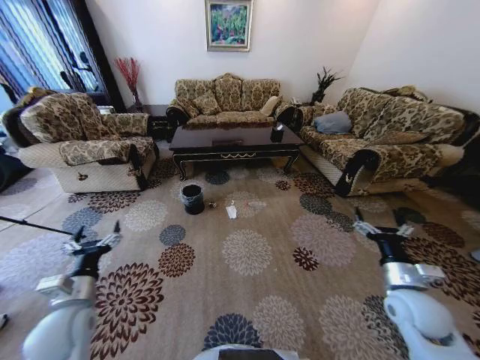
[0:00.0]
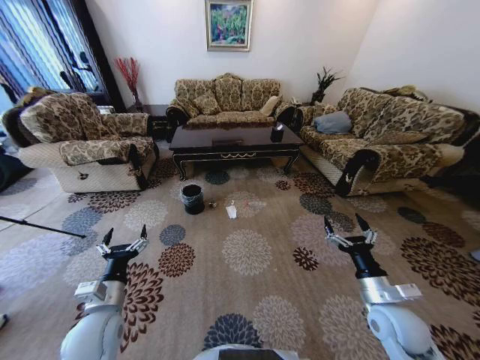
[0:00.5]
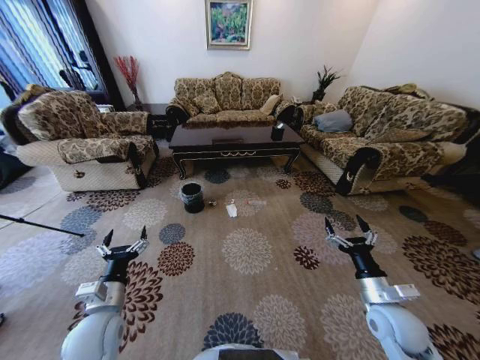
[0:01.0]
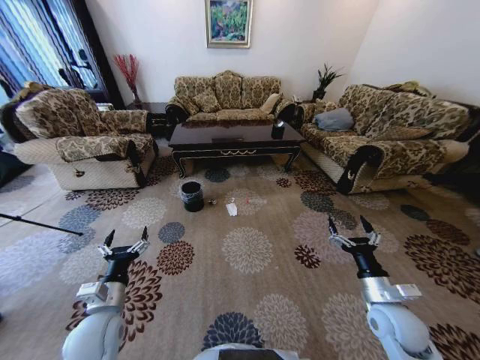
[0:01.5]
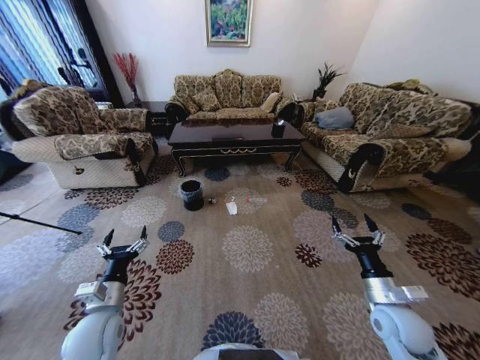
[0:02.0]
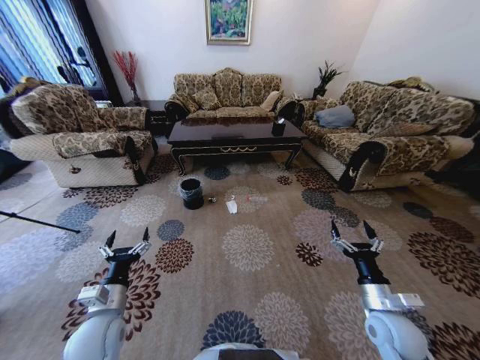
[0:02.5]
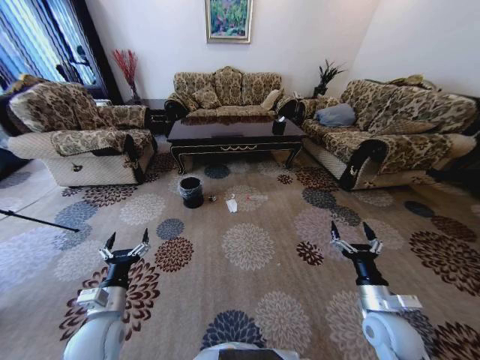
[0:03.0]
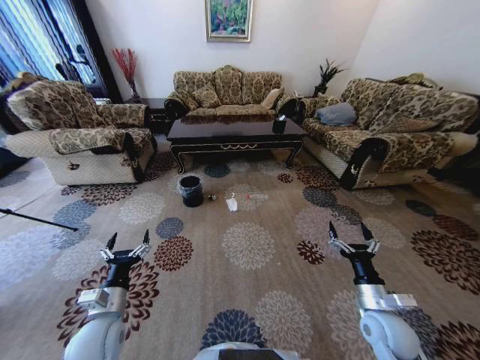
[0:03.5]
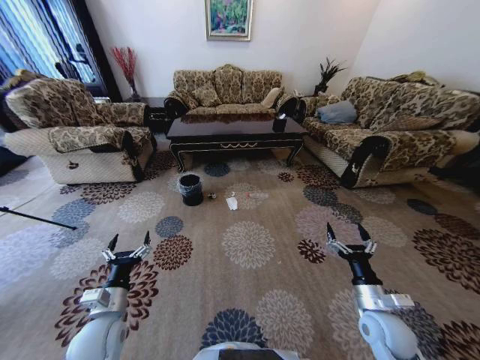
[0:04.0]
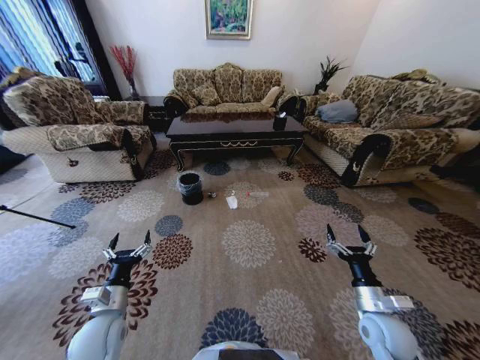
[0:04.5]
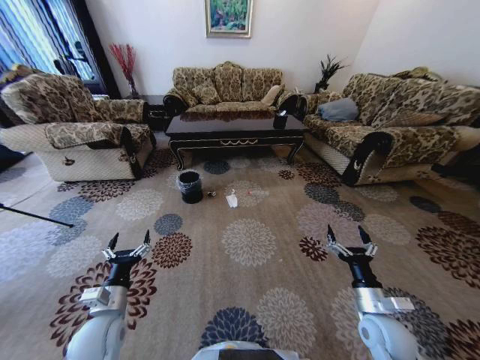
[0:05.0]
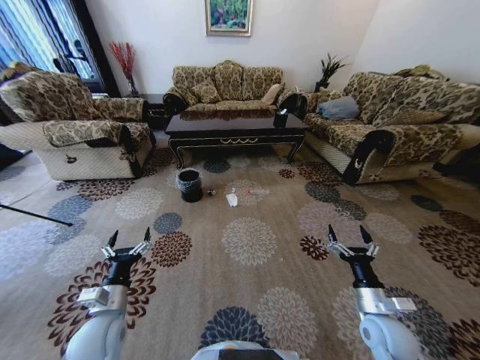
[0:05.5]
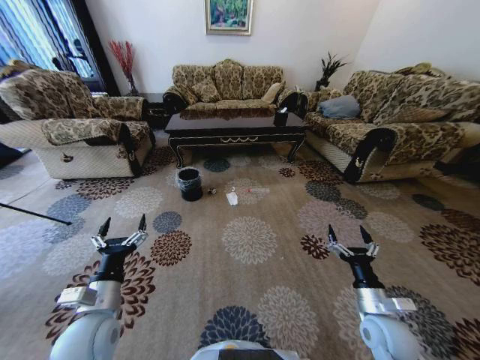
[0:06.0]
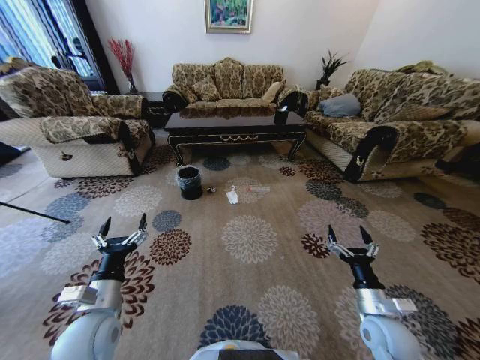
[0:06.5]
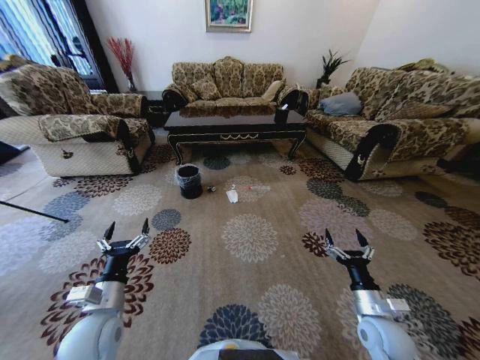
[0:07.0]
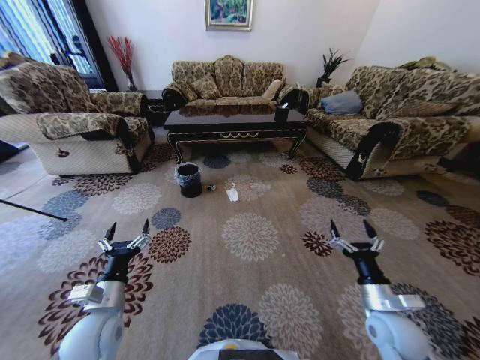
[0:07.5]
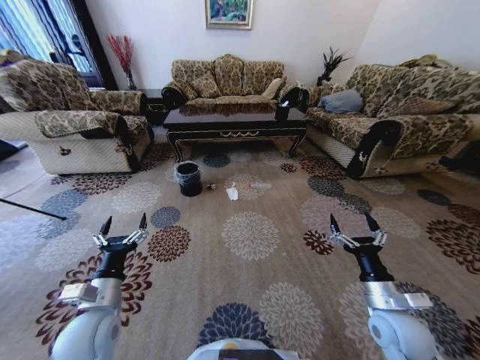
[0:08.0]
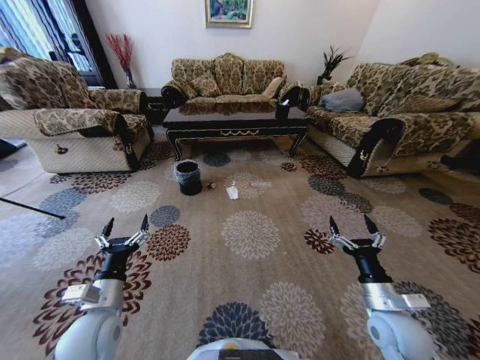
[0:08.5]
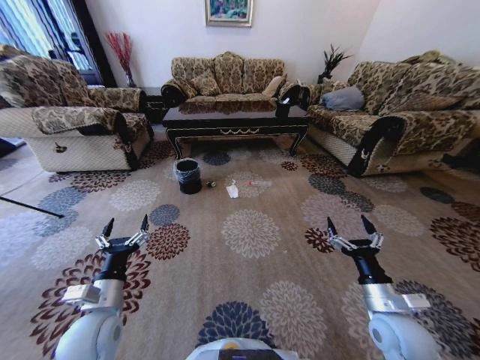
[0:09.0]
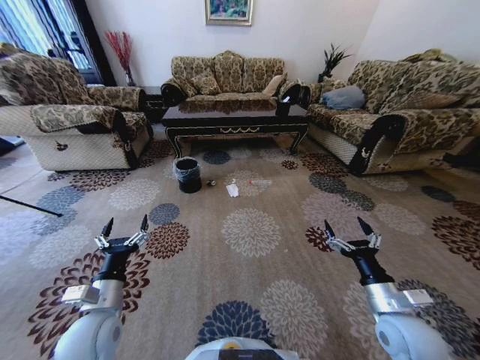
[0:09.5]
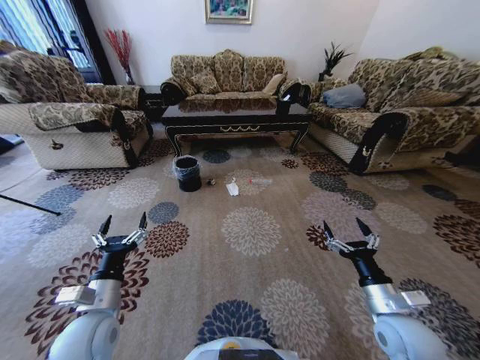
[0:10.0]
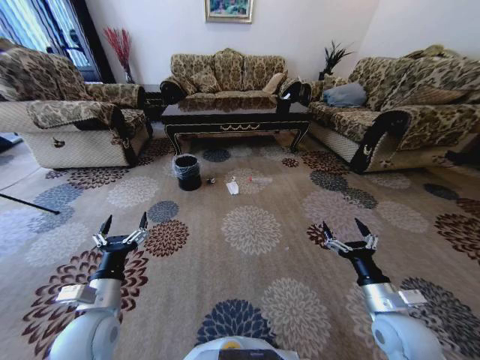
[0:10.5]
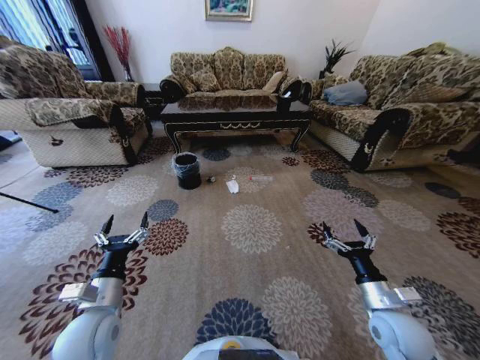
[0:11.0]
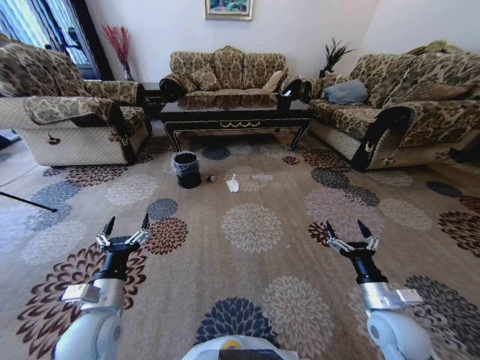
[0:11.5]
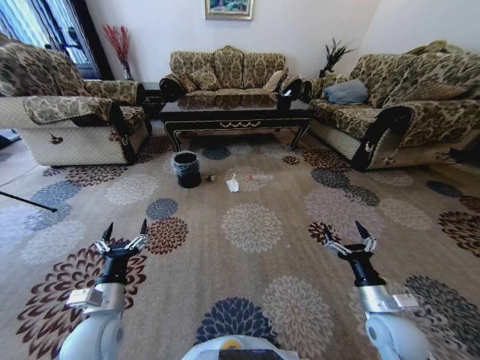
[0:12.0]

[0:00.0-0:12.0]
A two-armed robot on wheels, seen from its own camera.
Task of the whole recording: Move to the front of the table and pick up the trash from the floor, then place it into the trash bin.
0:04.0 to 0:06.0: The left gripper moves upward, some 5 cm.

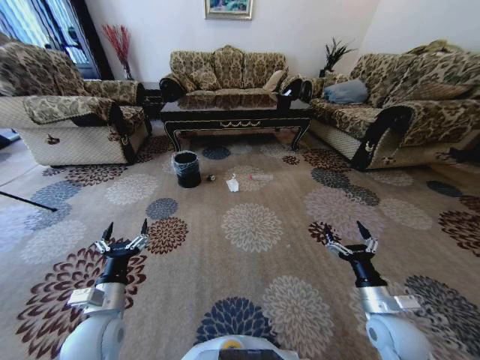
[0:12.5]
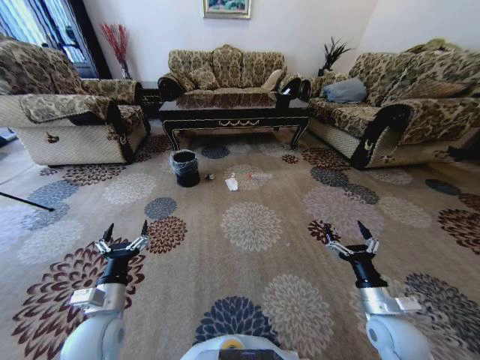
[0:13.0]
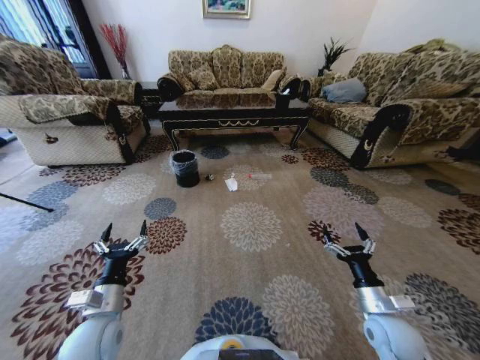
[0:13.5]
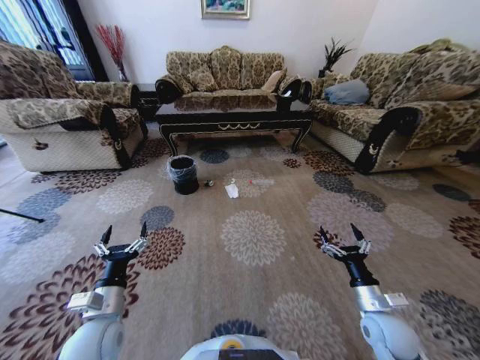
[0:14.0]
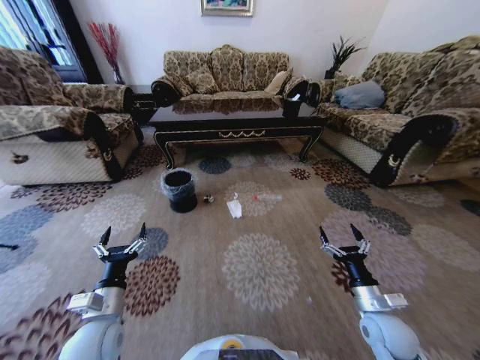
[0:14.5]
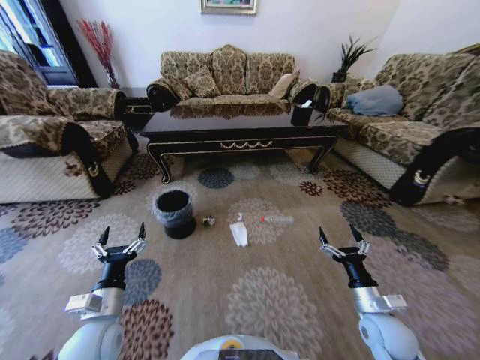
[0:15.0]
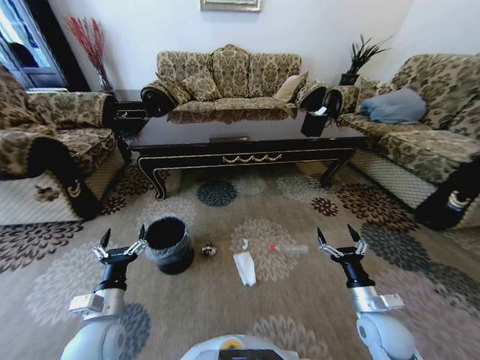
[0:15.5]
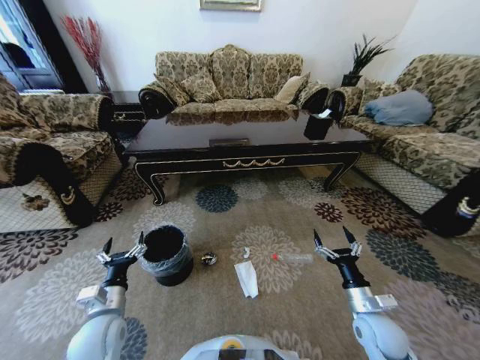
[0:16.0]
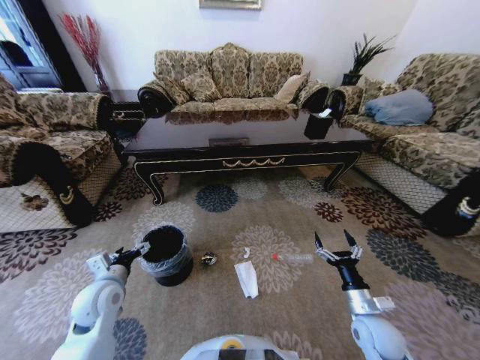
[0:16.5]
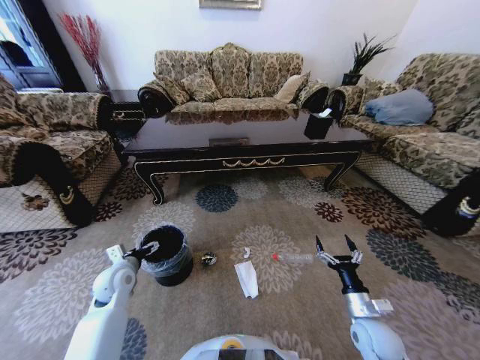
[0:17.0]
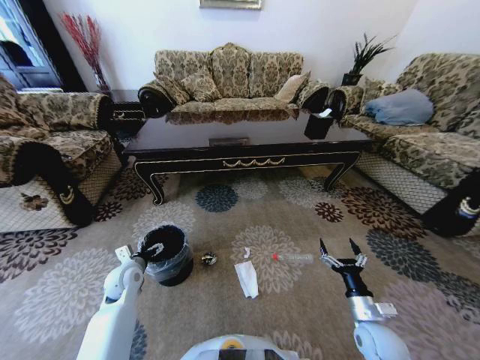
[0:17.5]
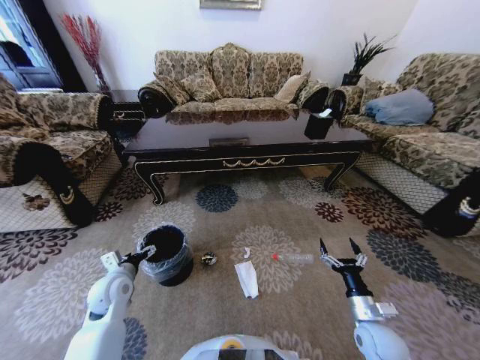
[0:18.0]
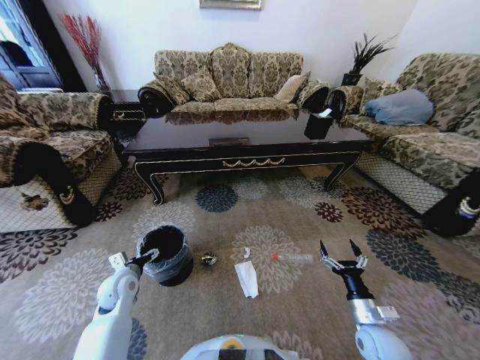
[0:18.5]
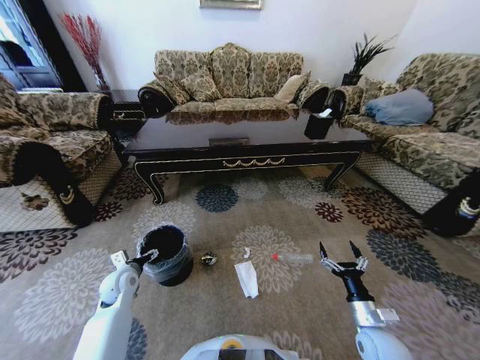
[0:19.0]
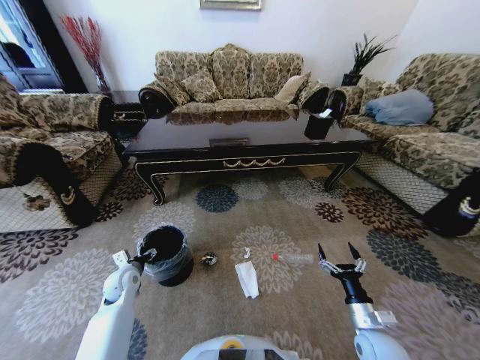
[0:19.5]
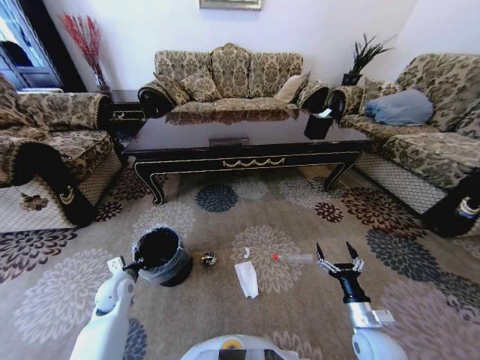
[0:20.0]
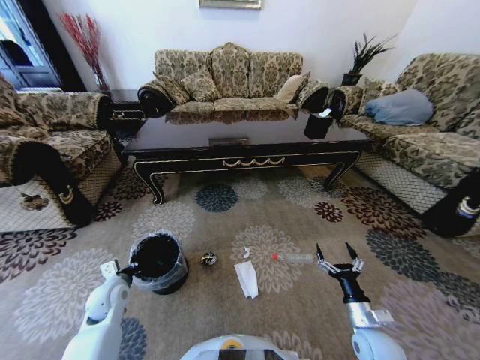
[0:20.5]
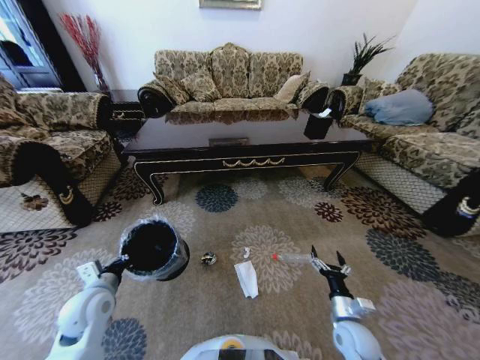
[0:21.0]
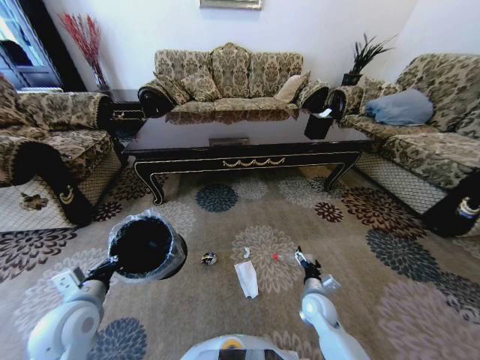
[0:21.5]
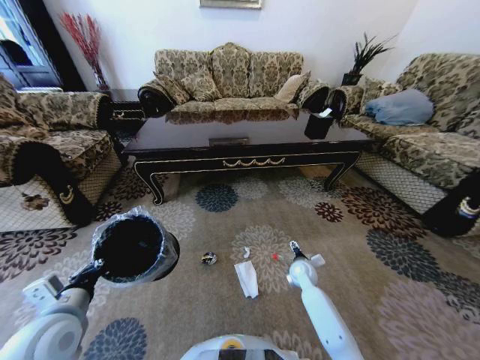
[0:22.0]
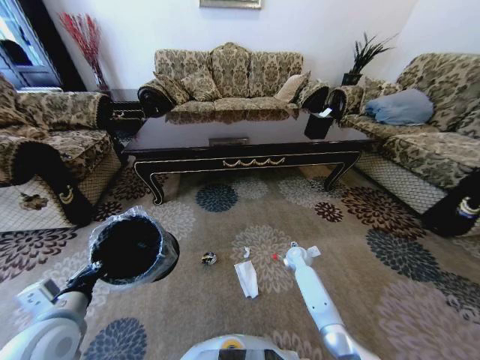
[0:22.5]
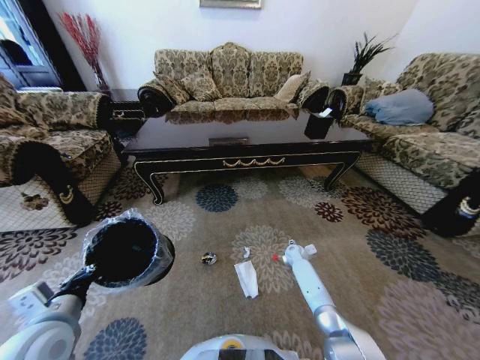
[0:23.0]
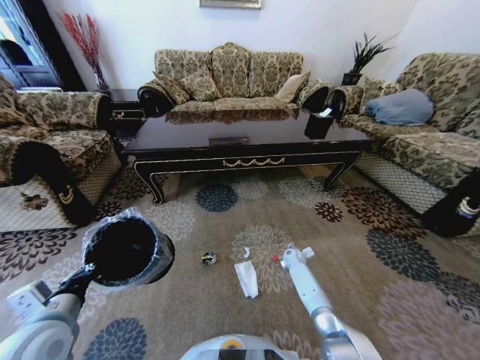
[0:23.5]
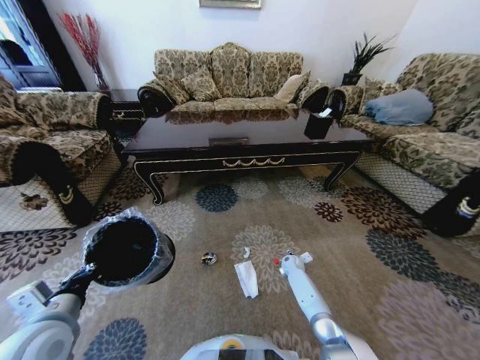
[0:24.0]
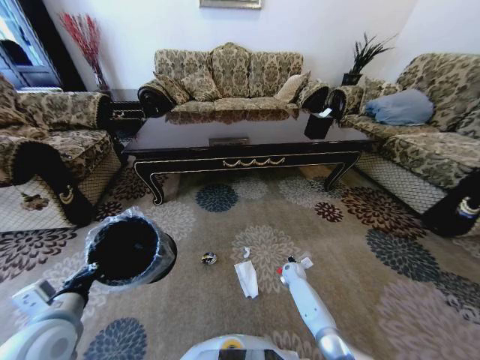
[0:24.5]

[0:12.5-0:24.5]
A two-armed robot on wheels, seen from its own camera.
Task of the whole recording: Move to the front of the table and pick up the trash from the floor, then place it into the trash bin.
0:14.5 to 0:16.5: The left gripper heads forward, covering roughly 5 cm.
0:16.5 to 0:18.5: The left gripper shifts roughly 10 cm downward and forward.
0:18.5 to 0:20.5: The left gripper closes up.
0:20.5 to 0:22.5: The left gripper is displaced upward and backward by approximately 20 cm. The right gripper moves forward, about 30 cm.
0:22.5 to 0:24.5: The right gripper goes some 10 cm downward, and closes.

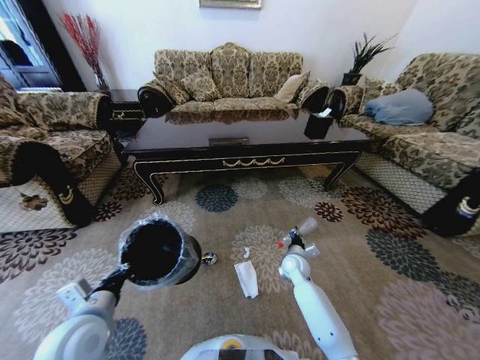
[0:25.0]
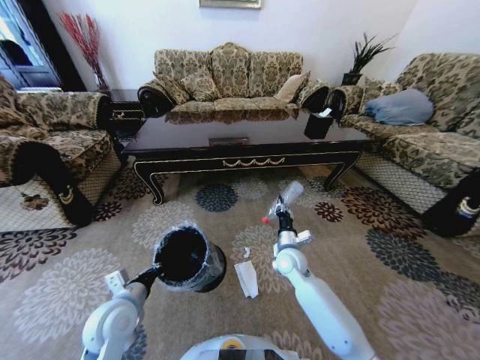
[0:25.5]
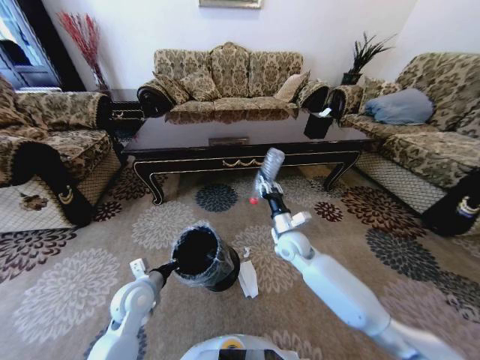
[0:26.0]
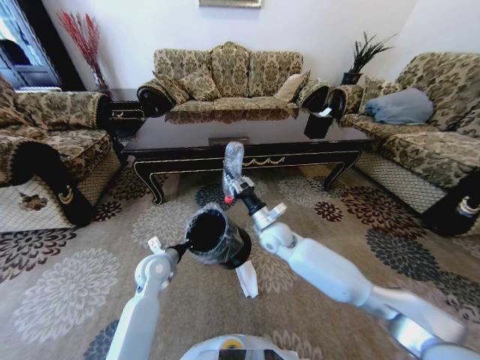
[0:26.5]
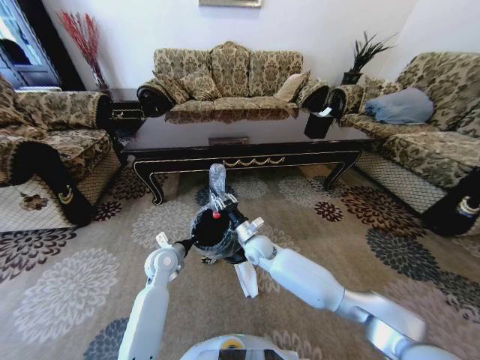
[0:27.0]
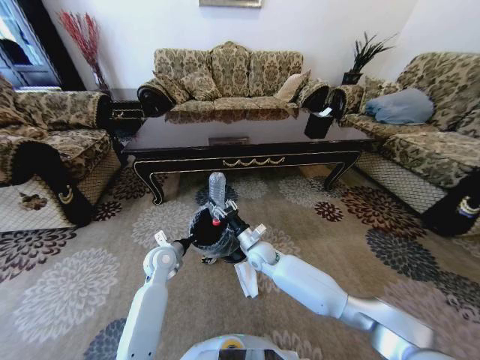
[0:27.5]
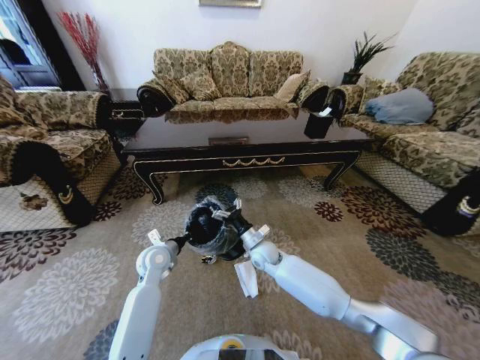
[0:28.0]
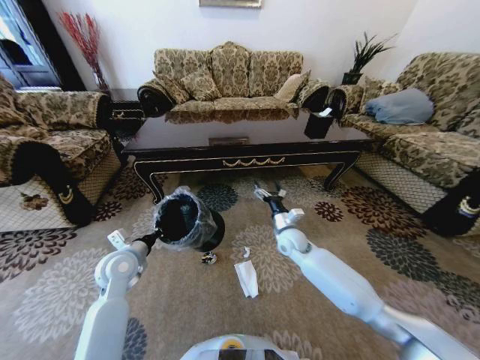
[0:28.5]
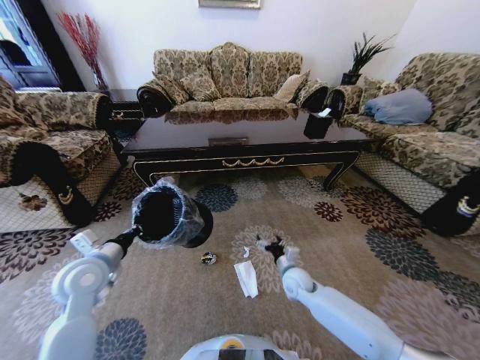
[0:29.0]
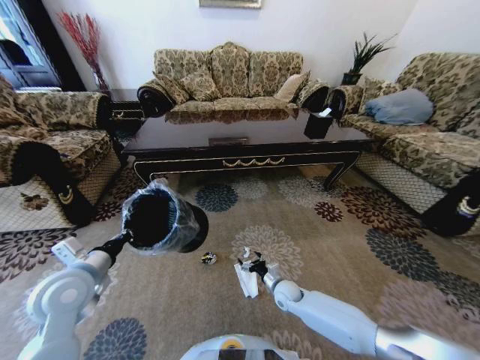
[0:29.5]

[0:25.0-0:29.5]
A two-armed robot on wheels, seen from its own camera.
Task of the whole recording: Move to the front of the table and pick up the trash from the floor, then place it into the trash bin.
0:25.0 to 0:27.0: The right gripper is displaced to the left and upward by about 15 cm. The left gripper heads forward and downward, covering approximately 20 cm.
0:27.0 to 0:29.5: The left gripper travels upward, backward and to the left by roughly 20 cm; the right gripper heads downward, to the right and backward, covering about 20 cm, and opens up.
